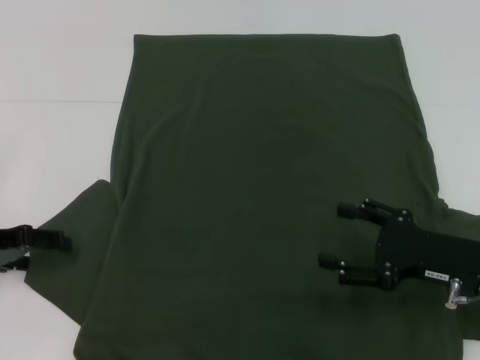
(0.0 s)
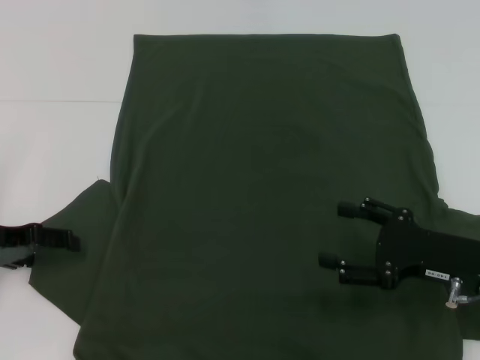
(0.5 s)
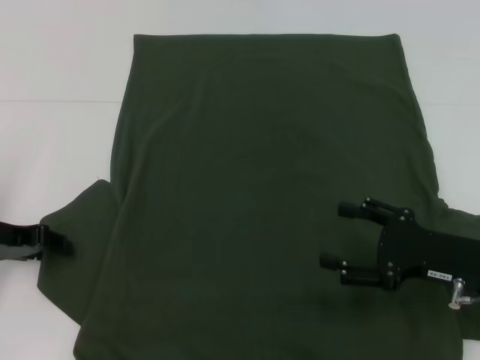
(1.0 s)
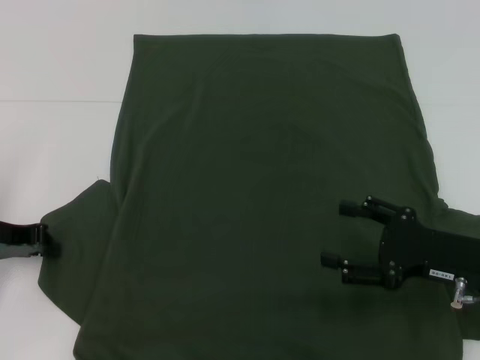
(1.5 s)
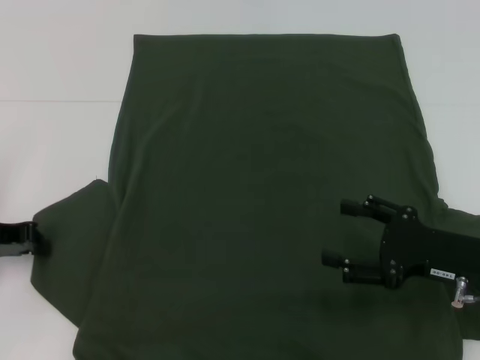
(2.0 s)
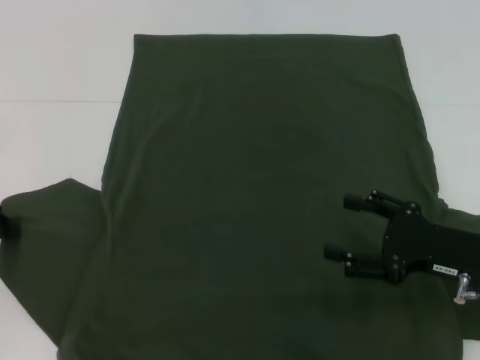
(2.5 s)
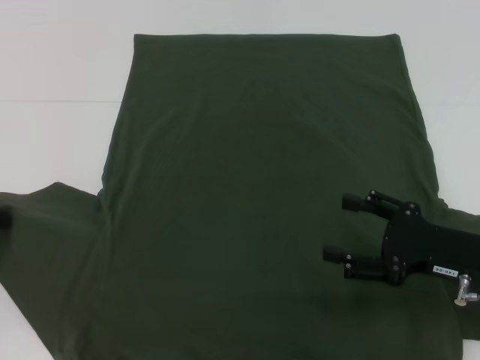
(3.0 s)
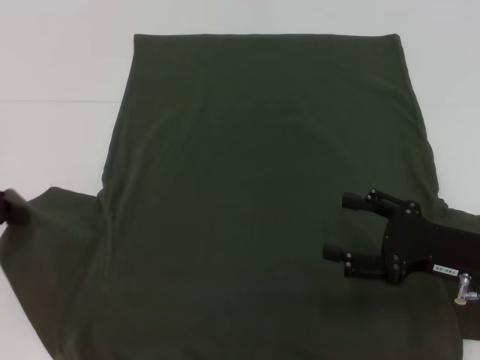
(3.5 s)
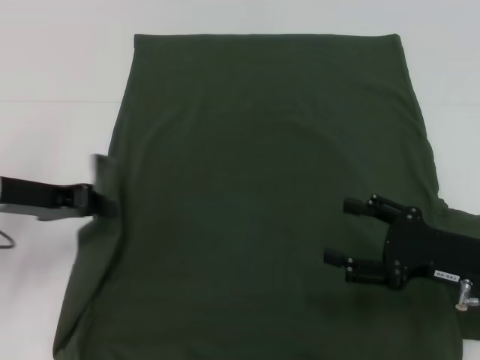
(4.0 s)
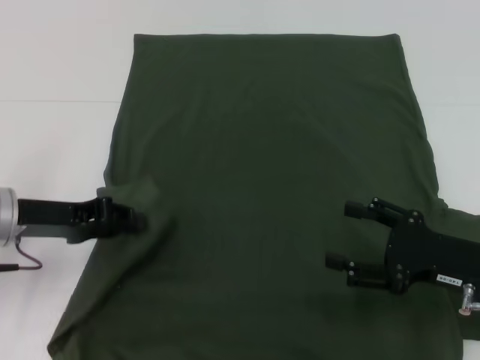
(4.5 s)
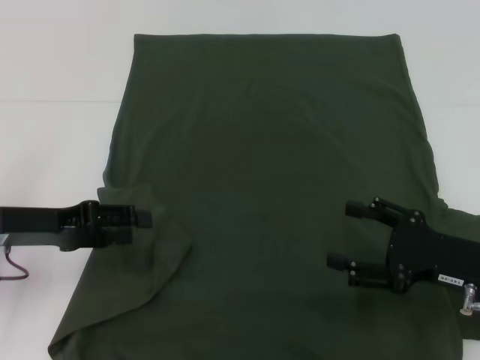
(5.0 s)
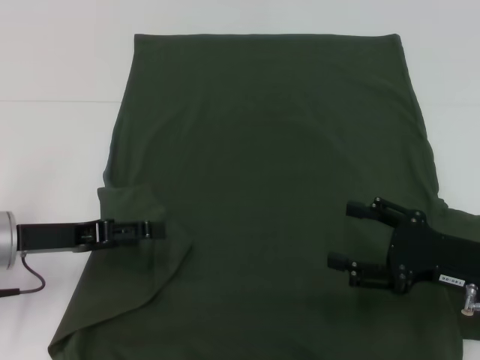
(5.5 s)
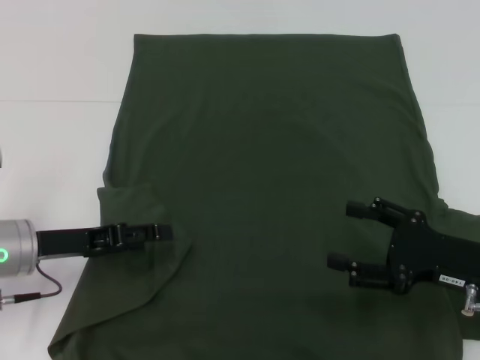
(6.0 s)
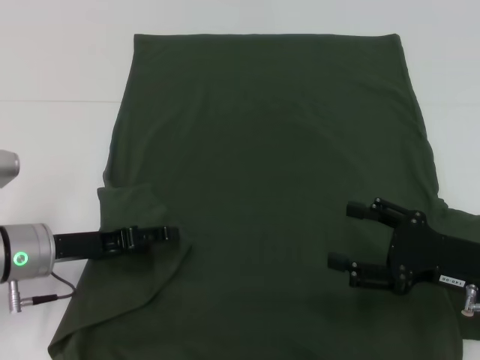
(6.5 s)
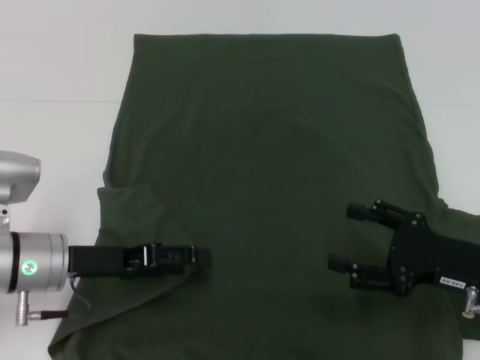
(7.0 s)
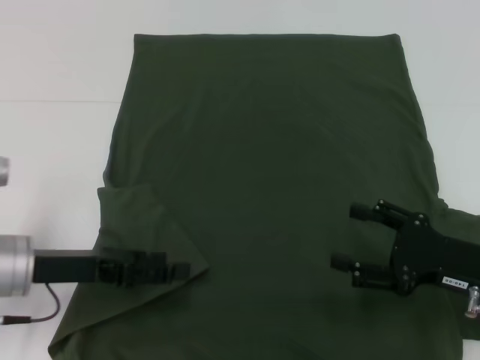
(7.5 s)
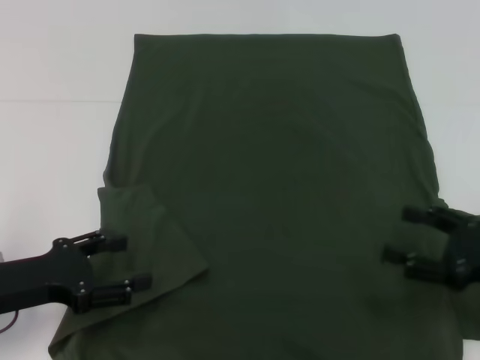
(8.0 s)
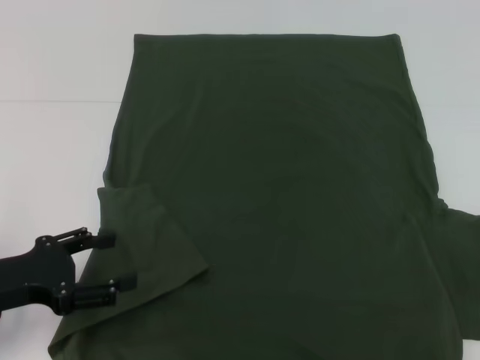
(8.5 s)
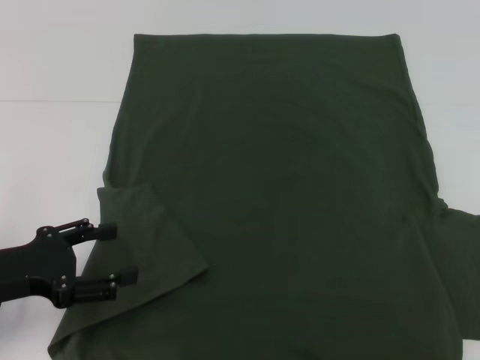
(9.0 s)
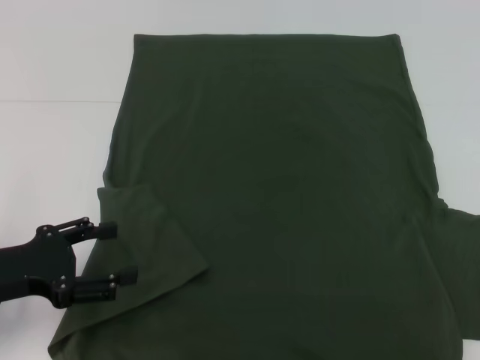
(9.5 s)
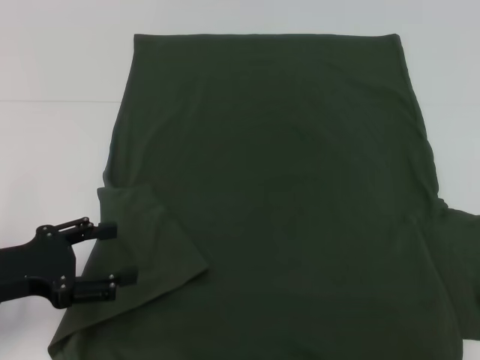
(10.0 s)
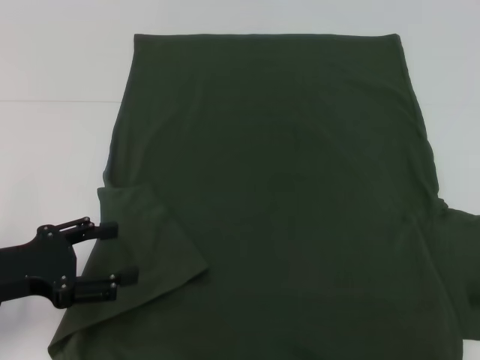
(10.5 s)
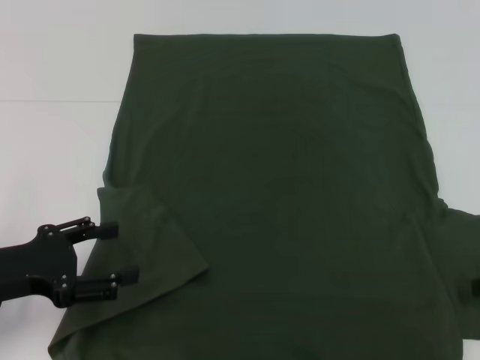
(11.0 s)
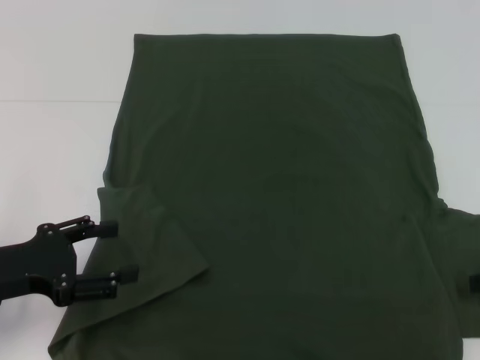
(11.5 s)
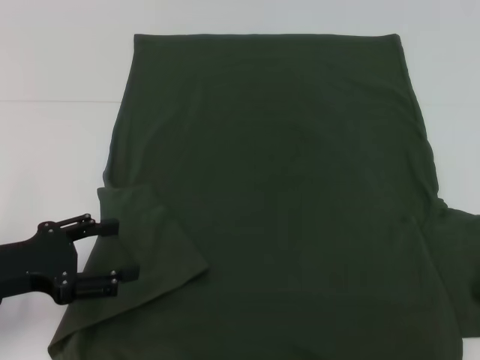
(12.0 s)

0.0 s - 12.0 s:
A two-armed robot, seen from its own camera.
Step, 0.0 s - 5.0 s: Fold the bottom left sleeve with your left hand.
0.0 s - 2.0 s: The left gripper closes up.
2.0 s - 4.0 s: The left gripper is displaced to the right by approximately 5 cm.
4.0 s - 6.0 s: The left gripper is displaced downward by approximately 5 cm, and opens its fingers.
6.0 s - 8.0 s: The left gripper is displaced backward by roughly 5 cm.
8.0 s - 10.0 s: The right gripper is displaced to the right by some 10 cm.

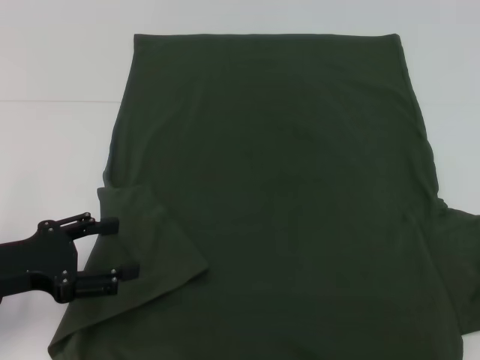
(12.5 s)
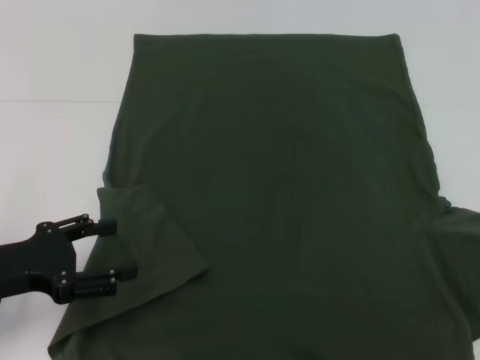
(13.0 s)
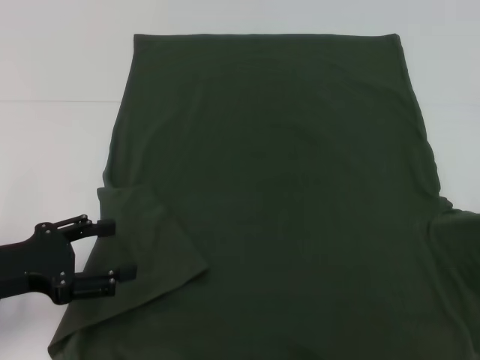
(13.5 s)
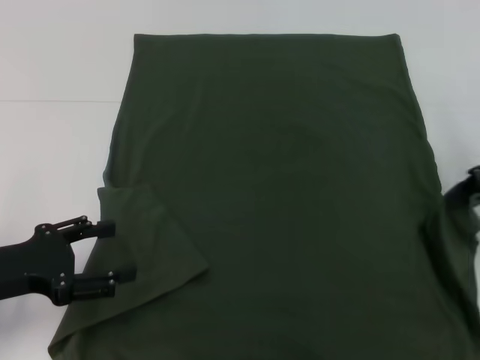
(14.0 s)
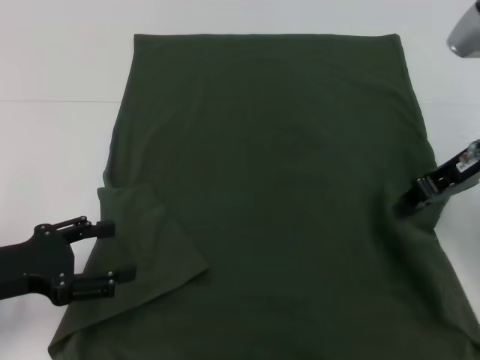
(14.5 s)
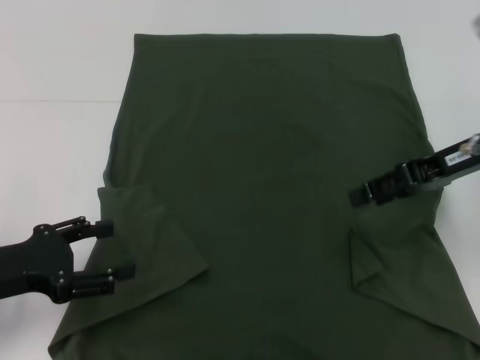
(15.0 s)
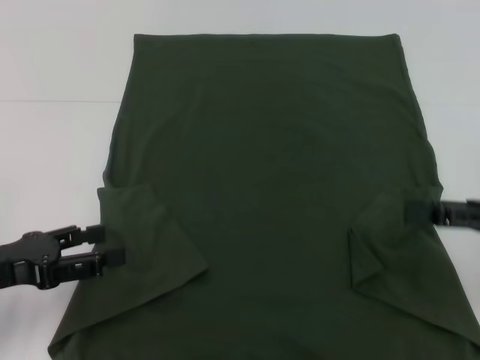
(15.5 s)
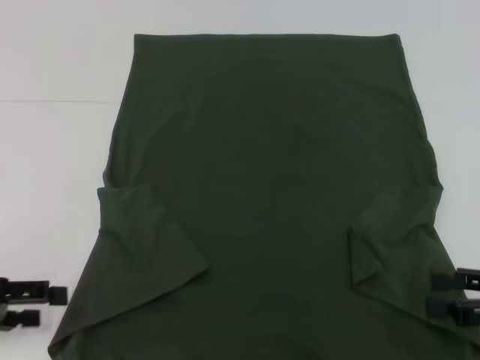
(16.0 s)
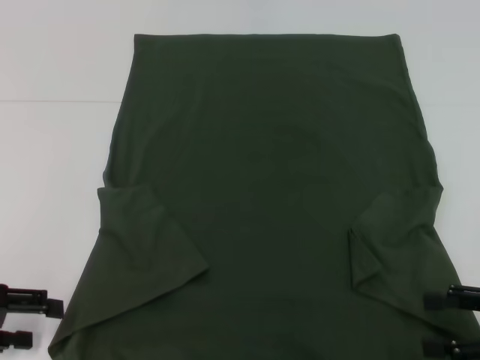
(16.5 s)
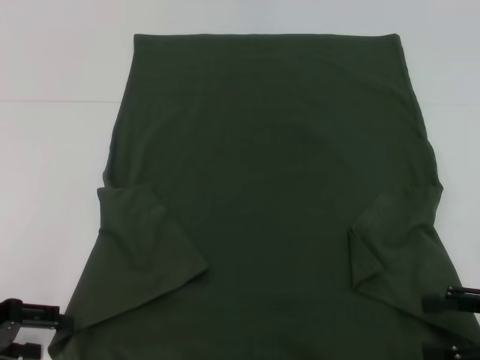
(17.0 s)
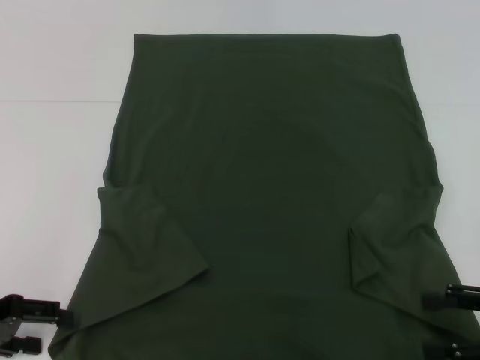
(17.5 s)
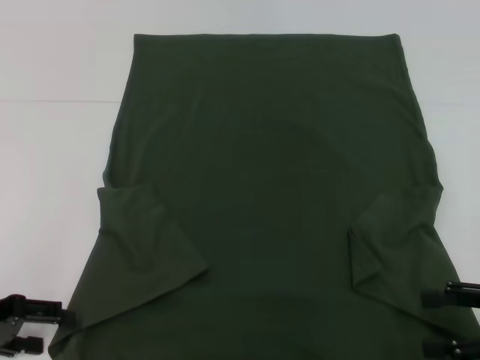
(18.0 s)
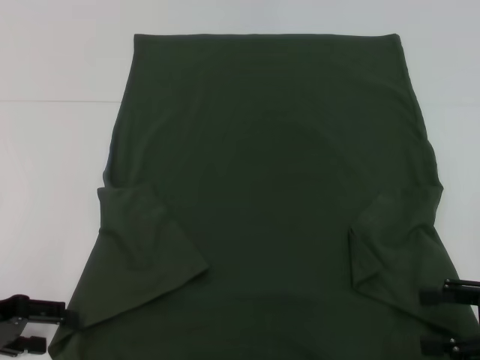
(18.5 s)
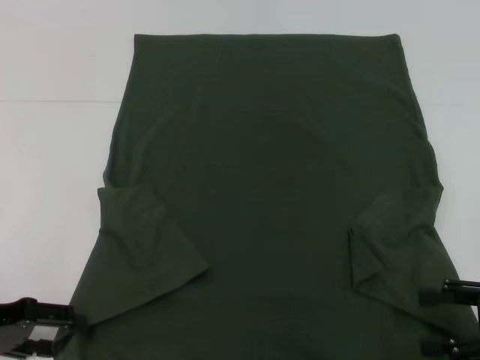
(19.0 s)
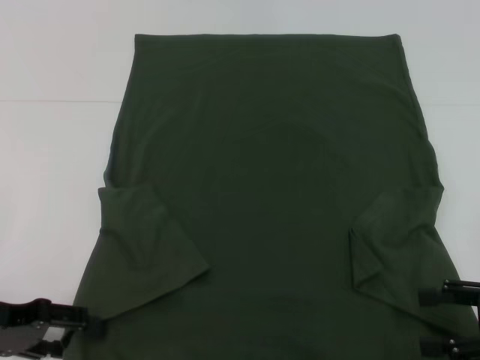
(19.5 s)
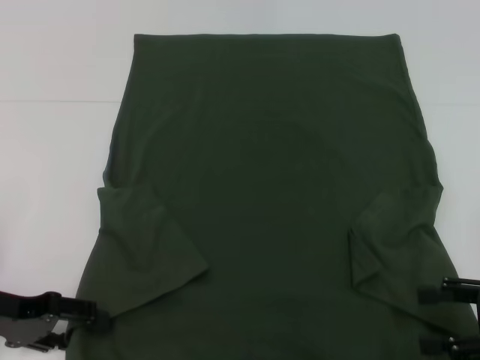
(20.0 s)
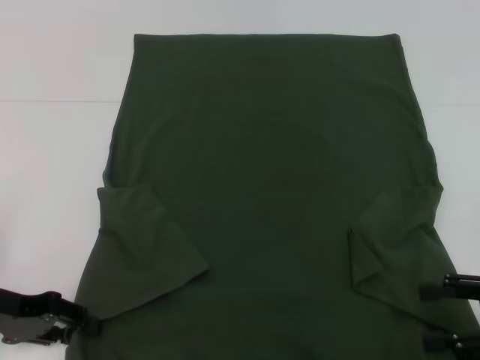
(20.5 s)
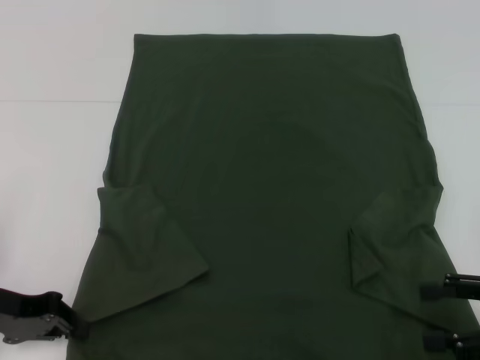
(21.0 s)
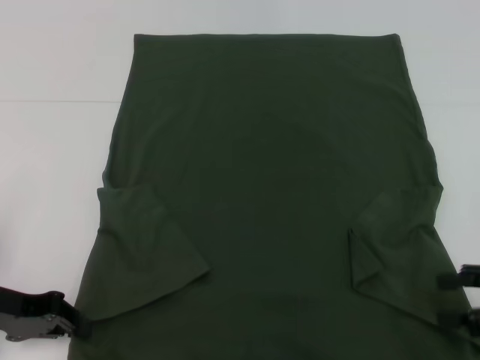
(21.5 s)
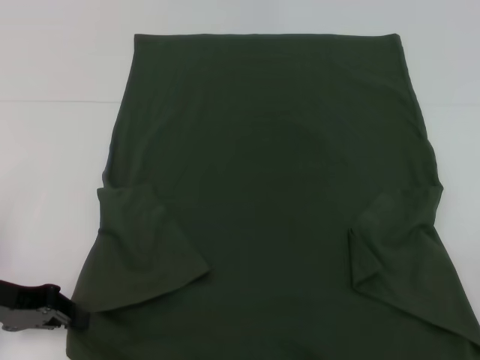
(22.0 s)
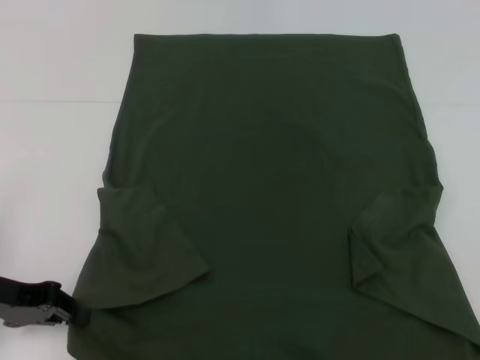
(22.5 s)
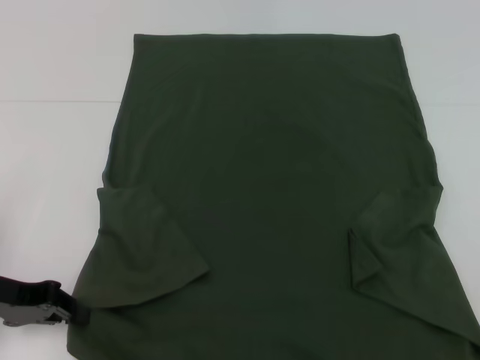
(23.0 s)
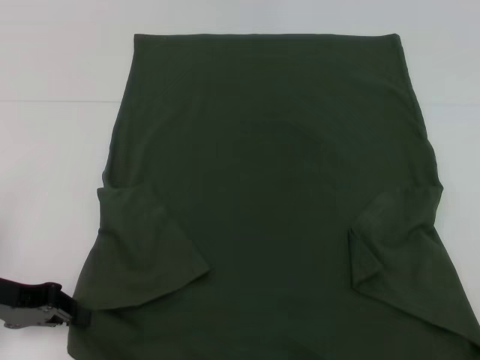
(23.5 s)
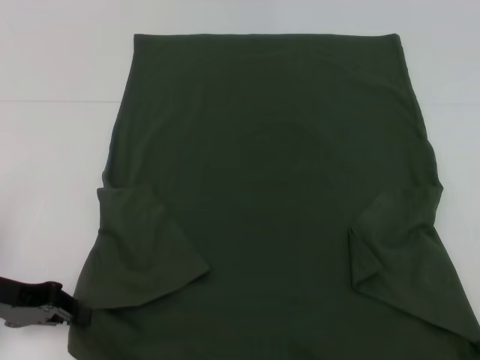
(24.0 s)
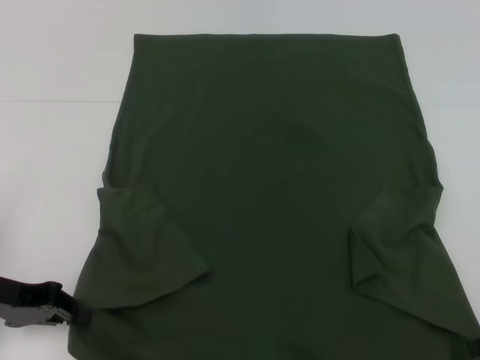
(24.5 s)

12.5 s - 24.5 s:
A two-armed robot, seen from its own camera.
Step, 12.5 s - 16.5 s: Fold the bottom right sleeve with your right hand.
12.5 s - 14.5 s: The right gripper is displaced to the left, upward and forward by about 20 cm.
14.5 s - 16.5 s: The right gripper shifts roughly 20 cm backward, downward and to the right, and opens up, while the left gripper moves to the left, approximately 5 cm.
16.5 s - 20.5 s: The grippers move only a little.
20.5 s - 22.5 s: The left gripper closes. Meanwhile the right gripper moves to the right and upward, about 10 cm.

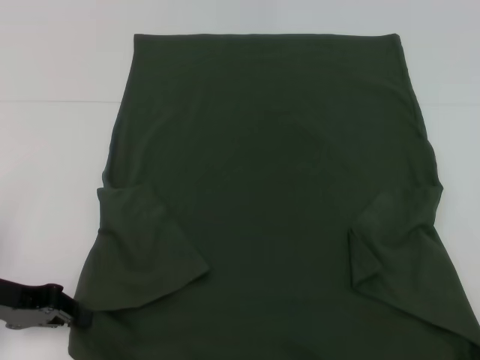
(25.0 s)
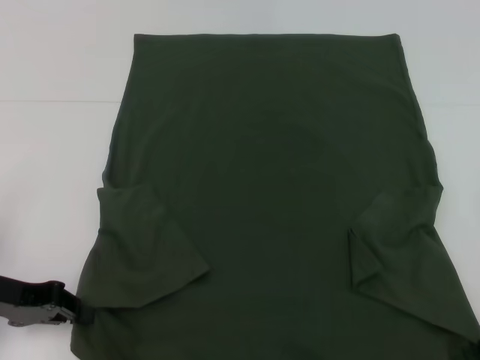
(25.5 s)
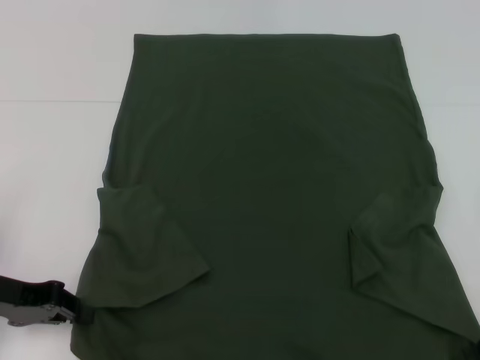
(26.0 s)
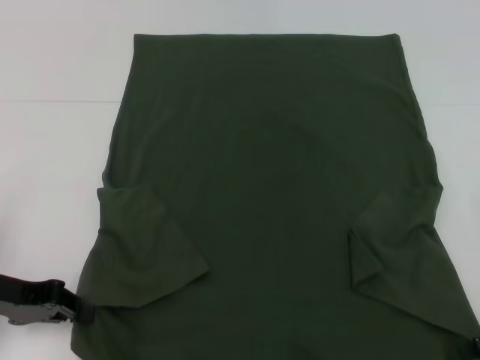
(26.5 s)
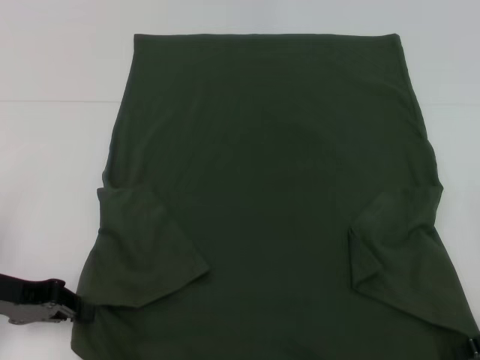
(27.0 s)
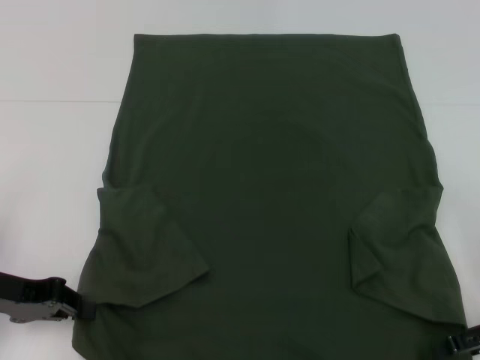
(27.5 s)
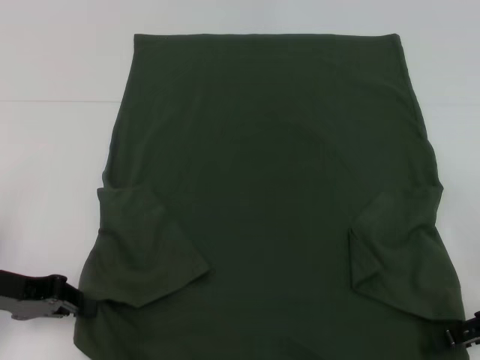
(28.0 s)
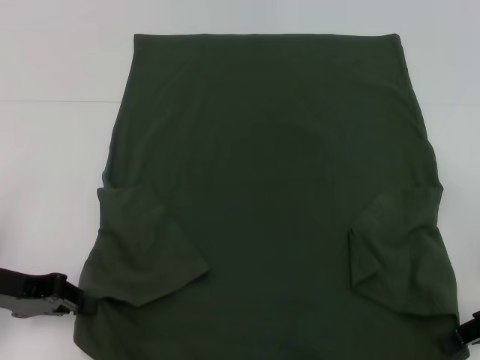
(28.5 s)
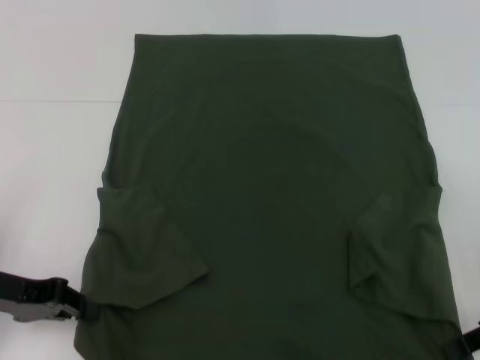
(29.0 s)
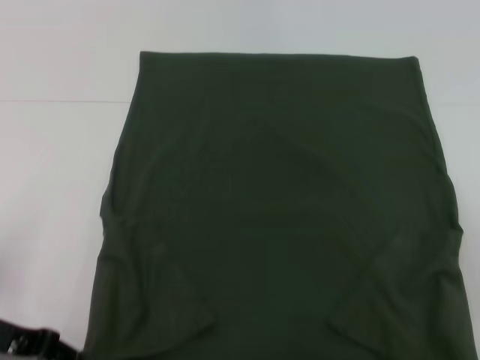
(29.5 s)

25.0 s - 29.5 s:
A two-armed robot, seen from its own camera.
Step, 25.0 s - 28.5 s: Grab the bottom left corner with your left hand.
Step, 25.0 s - 28.5 s: Grab the bottom right corner with your right hand.
25.0 s - 27.0 s: The grippers stay close to where they were, moving slightly.
27.0 s - 29.5 s: The right gripper closes.
